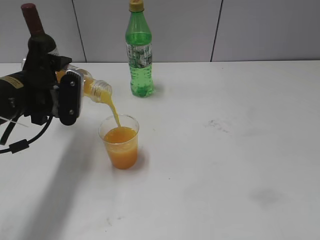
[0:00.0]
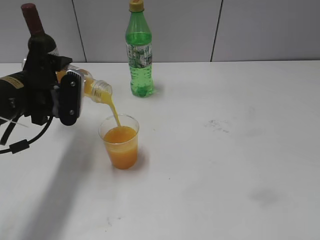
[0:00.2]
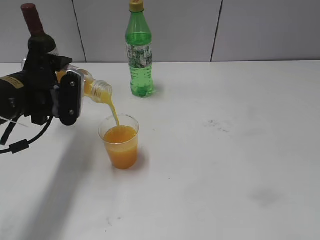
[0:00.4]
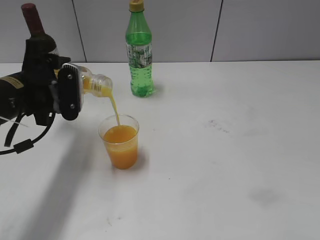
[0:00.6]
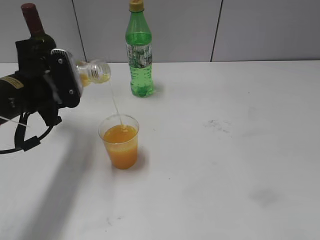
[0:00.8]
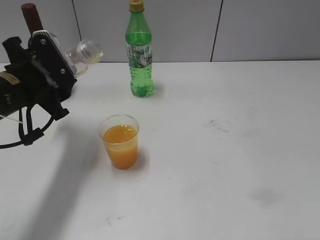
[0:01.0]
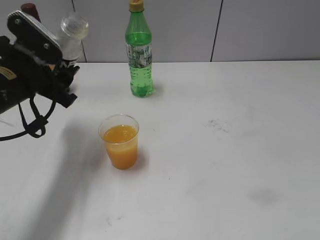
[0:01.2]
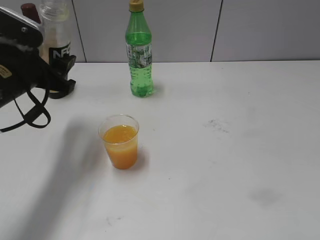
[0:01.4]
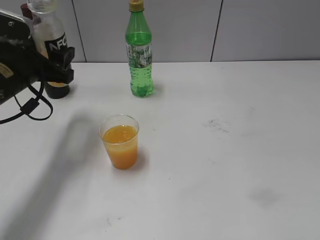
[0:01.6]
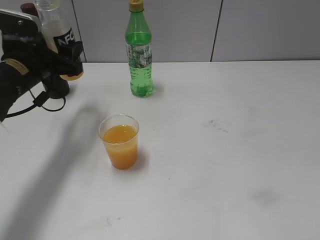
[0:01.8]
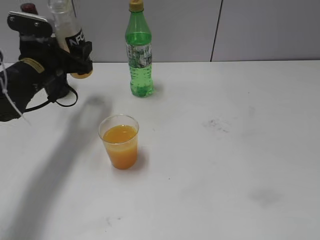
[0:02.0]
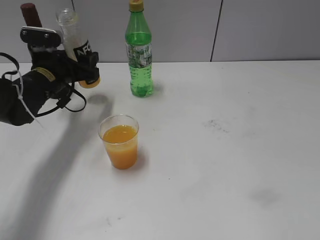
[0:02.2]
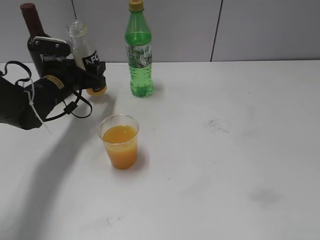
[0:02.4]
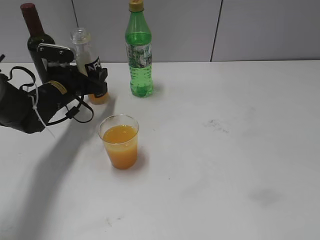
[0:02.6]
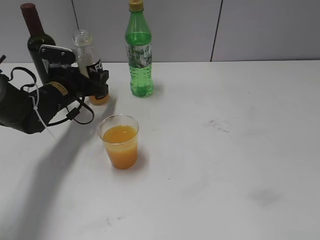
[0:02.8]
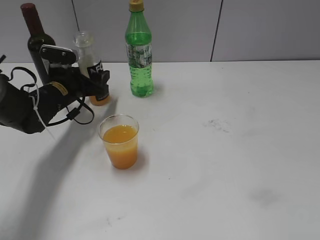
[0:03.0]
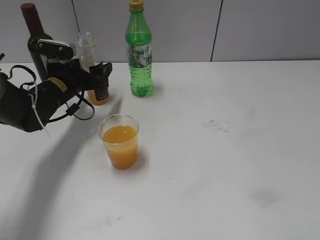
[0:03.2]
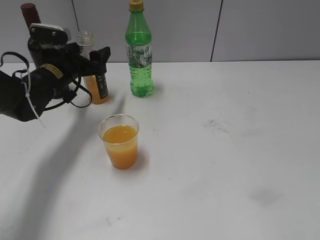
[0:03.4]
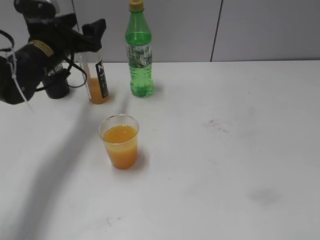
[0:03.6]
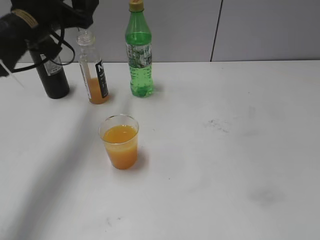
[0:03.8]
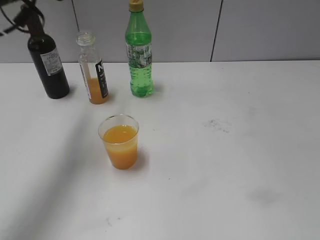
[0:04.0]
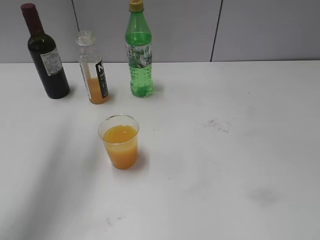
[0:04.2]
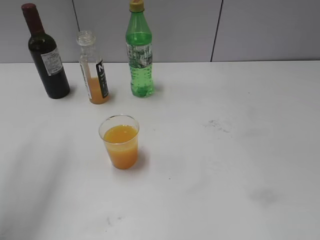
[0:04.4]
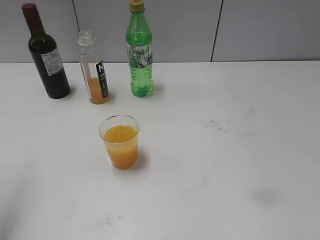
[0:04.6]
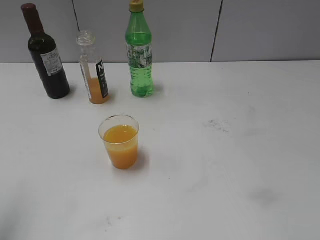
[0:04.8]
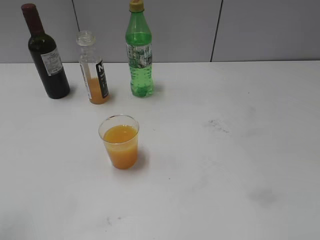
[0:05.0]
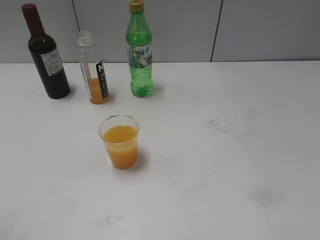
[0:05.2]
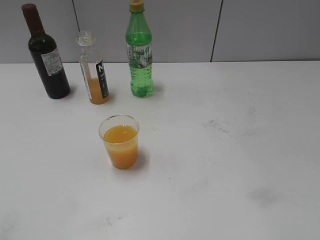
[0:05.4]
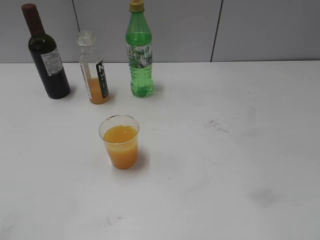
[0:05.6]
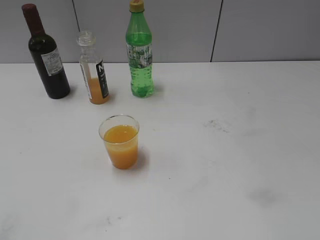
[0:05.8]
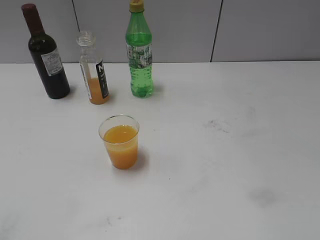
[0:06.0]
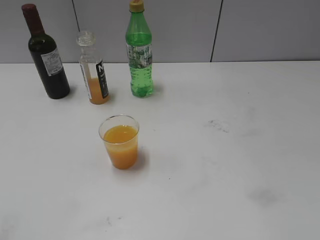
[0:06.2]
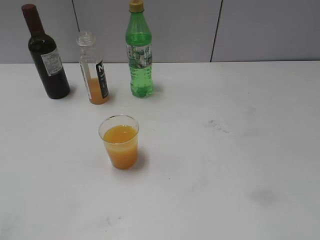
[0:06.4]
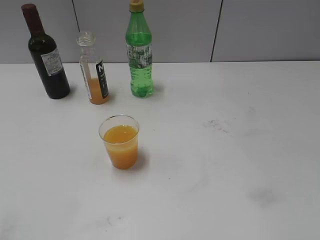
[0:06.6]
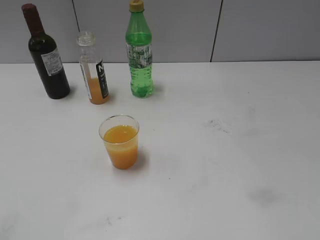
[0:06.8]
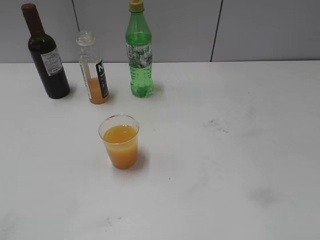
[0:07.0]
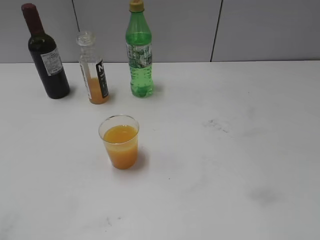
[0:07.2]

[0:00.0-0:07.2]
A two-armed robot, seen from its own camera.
Step, 1.2 to 3.0 s: Place the orange juice bottle on the table with left gripper.
1.4 to 2.8 s: The left gripper is displaced forward and downward by roughly 15 cm.
2.8 to 4.4 s: The left gripper shifts some 35 cm upward and backward.
4.4 to 5.8 s: The left gripper travels backward by roughly 25 cm.

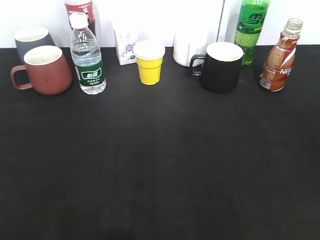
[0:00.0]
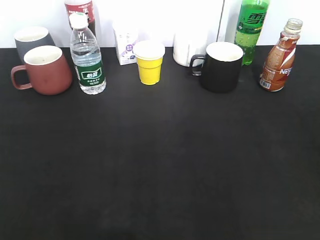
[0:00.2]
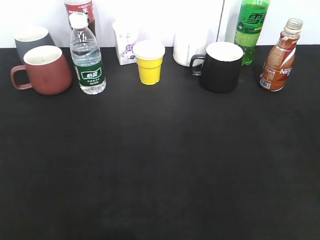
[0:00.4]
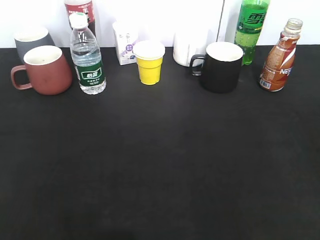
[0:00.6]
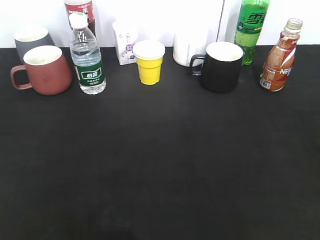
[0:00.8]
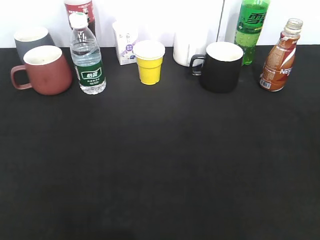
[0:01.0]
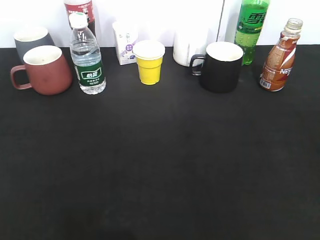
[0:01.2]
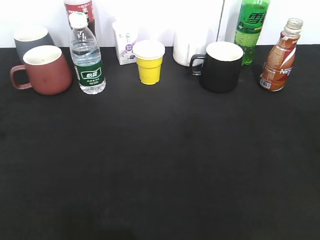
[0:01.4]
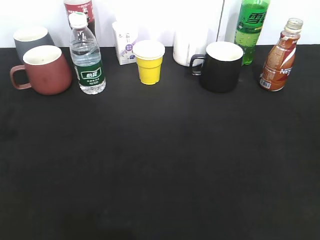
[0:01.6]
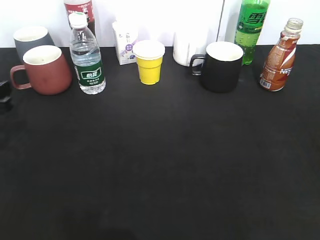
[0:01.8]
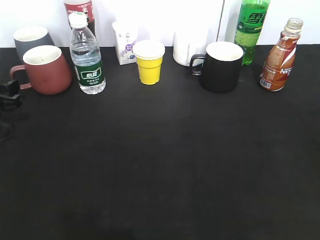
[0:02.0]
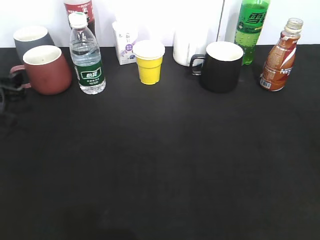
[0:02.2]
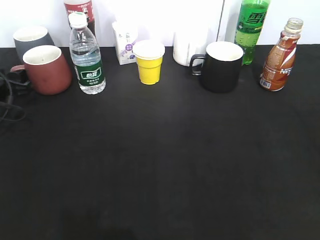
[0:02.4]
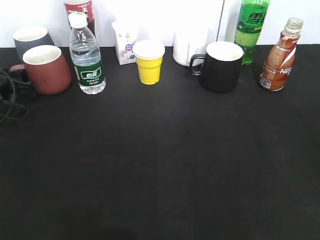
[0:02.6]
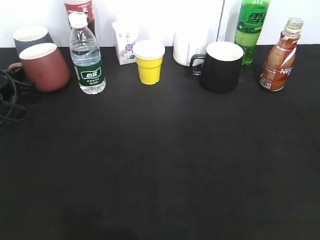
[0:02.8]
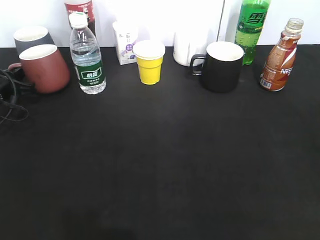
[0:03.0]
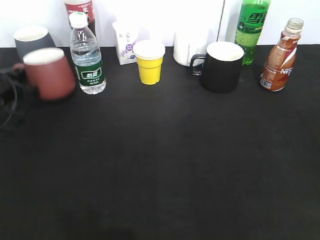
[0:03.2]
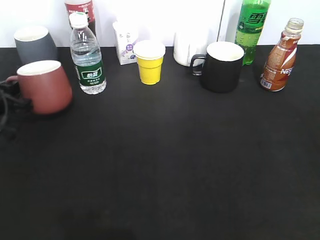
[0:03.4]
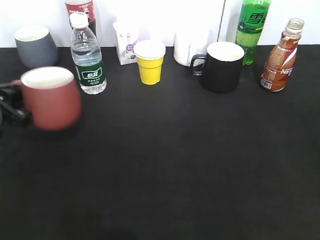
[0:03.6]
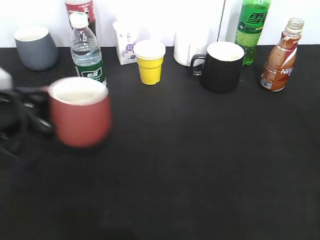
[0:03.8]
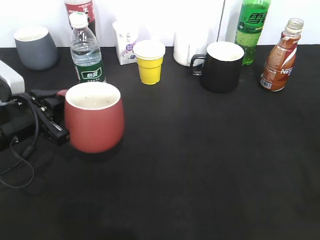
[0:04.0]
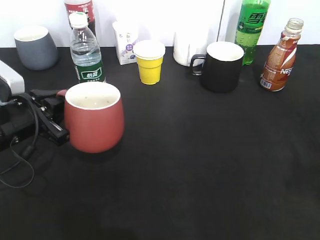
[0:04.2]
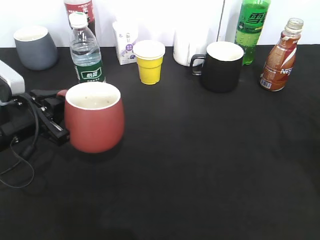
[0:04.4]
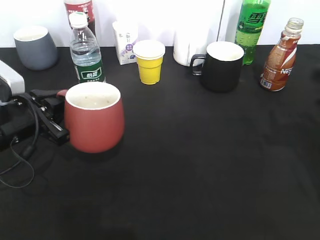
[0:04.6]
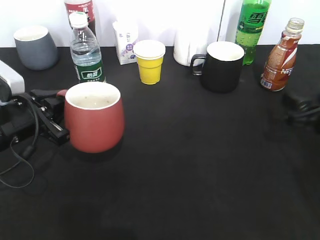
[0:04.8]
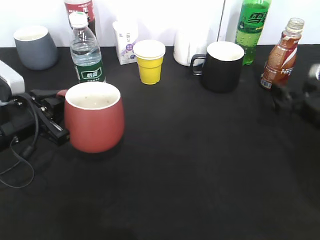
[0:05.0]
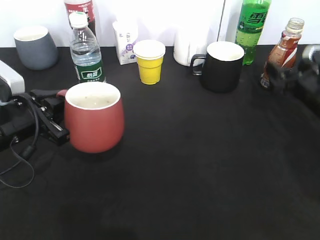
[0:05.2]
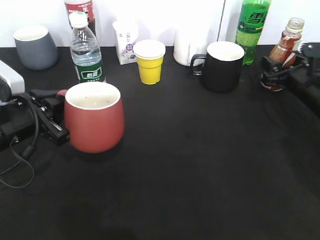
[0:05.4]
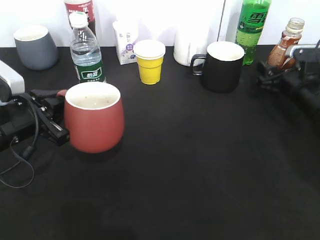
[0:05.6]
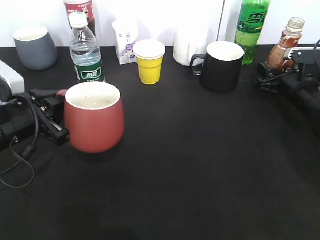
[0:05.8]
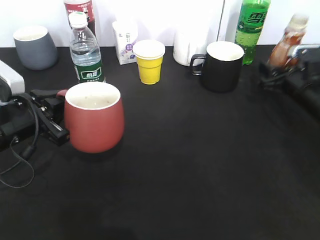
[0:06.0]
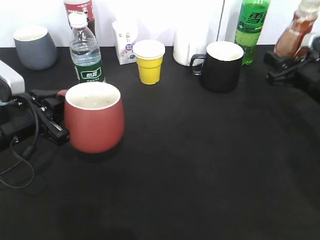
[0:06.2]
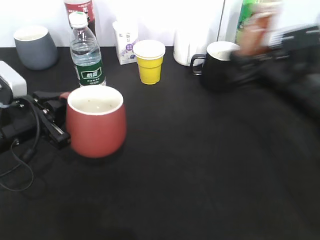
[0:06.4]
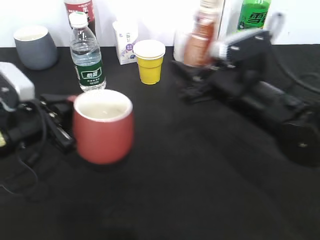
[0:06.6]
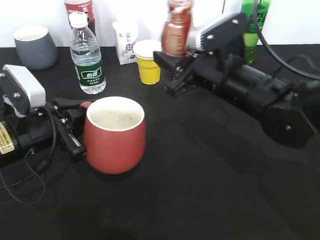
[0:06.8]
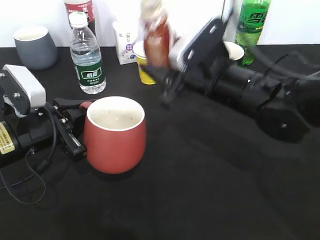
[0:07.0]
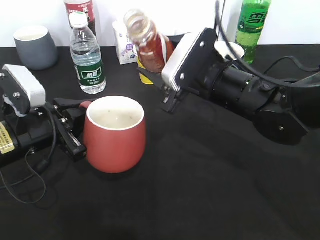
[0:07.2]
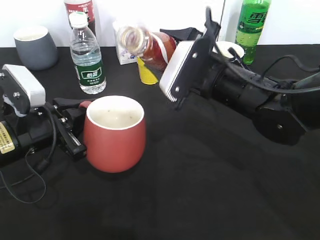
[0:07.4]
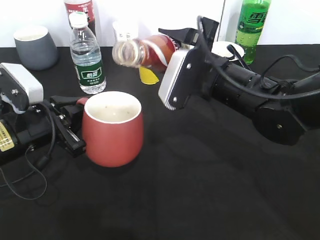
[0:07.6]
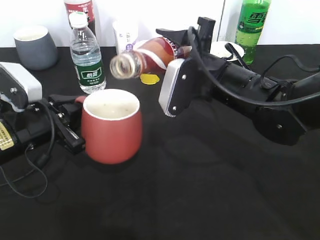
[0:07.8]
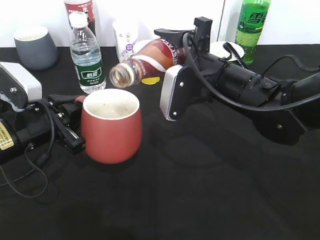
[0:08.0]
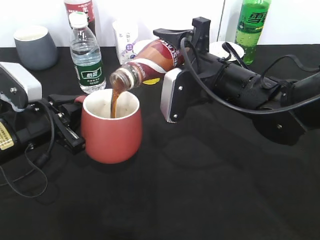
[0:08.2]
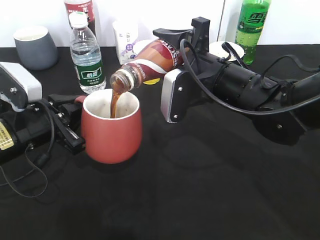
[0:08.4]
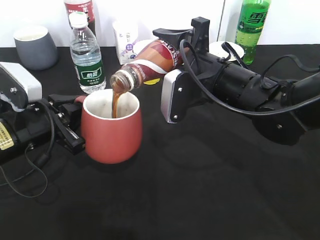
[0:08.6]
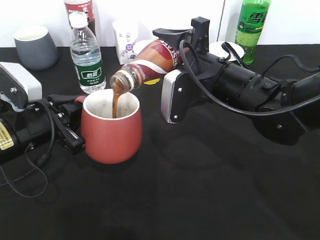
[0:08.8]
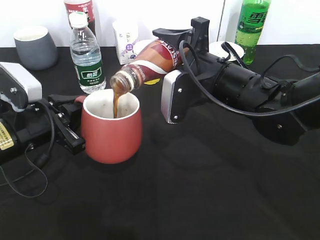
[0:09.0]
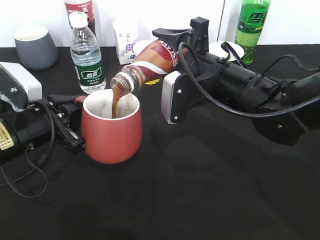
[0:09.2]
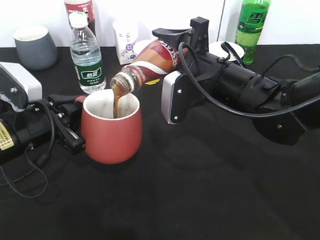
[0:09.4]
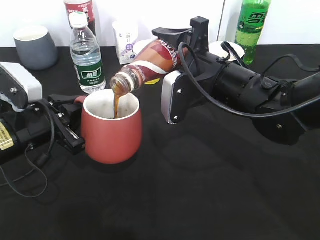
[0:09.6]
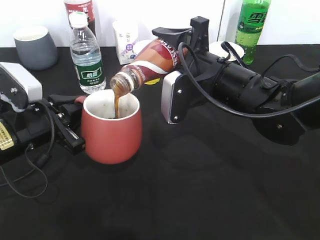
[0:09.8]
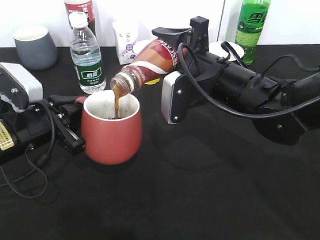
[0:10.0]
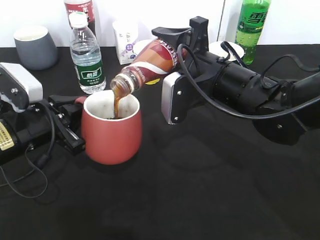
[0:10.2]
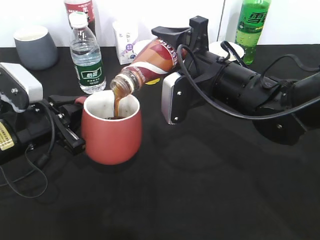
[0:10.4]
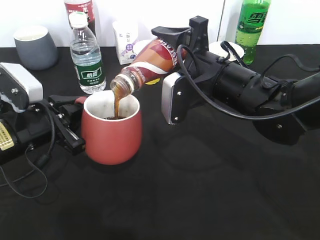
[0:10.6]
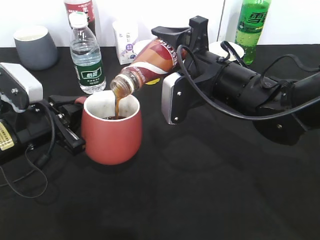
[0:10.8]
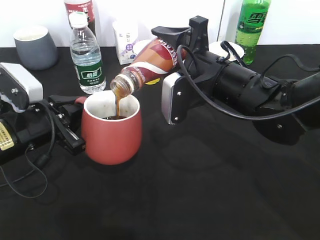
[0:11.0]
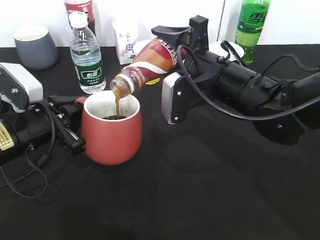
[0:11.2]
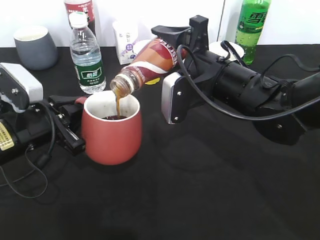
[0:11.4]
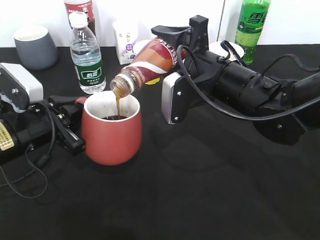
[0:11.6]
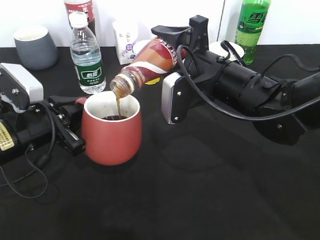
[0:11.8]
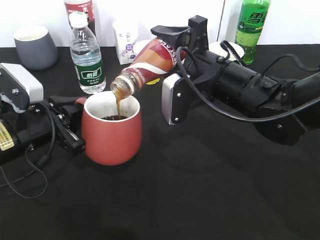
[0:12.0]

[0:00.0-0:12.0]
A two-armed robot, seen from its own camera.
Step, 0.0 to 2.8 s: Grasp the red cup with left gripper.
Step, 3.0 to 3.8 s: Lift the red cup with left gripper.
Step, 4.0 to 5.6 s: Grasp the bottle with coffee with right gripper.
0.0 to 1.6 s: The left gripper is displaced forward and downward by roughly 30 cm.
1.6 to 3.0 s: The left gripper travels forward by approximately 15 cm, and closes.
3.0 to 4.4 s: The left gripper goes some 15 cm backward and to the right. The right gripper moves forward, about 15 cm.
4.4 to 6.0 s: The right gripper moves forward and downward, some 25 cm, and closes its fingers.
6.0 to 7.6 s: The right gripper is displaced to the left by roughly 20 cm.
9.0 to 10.4 s: Neither gripper changes place.
10.4 to 12.0 s: Neither gripper changes place.

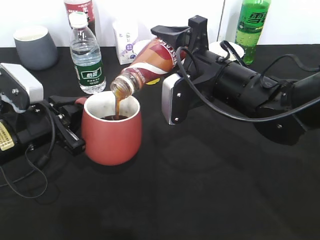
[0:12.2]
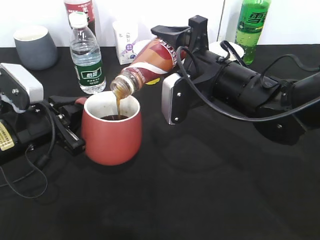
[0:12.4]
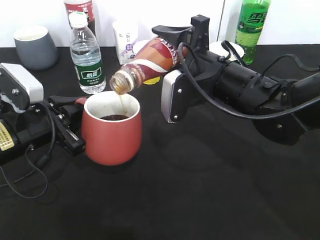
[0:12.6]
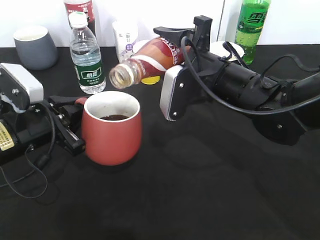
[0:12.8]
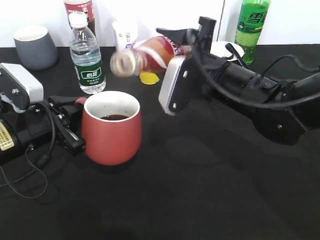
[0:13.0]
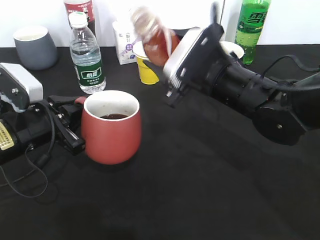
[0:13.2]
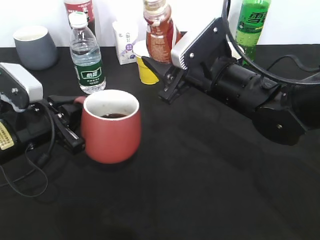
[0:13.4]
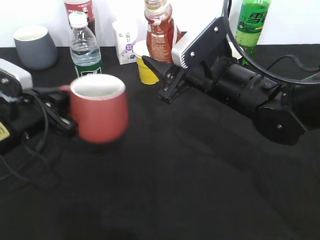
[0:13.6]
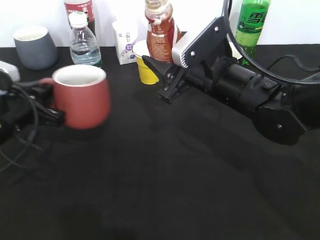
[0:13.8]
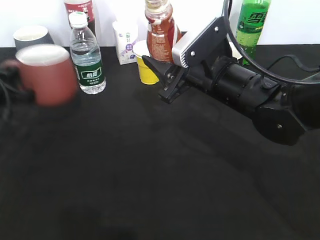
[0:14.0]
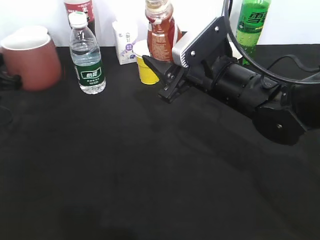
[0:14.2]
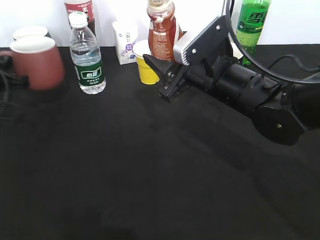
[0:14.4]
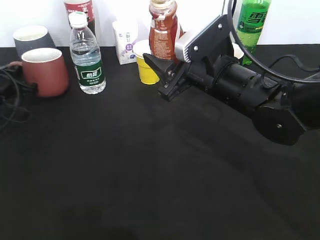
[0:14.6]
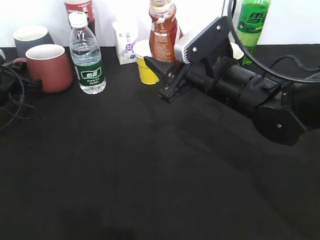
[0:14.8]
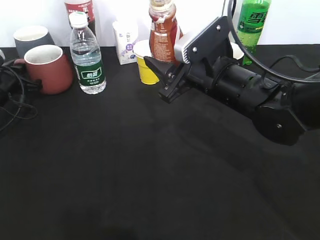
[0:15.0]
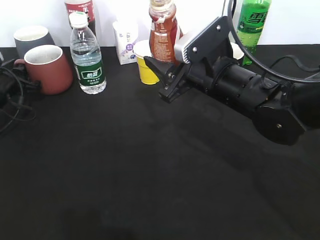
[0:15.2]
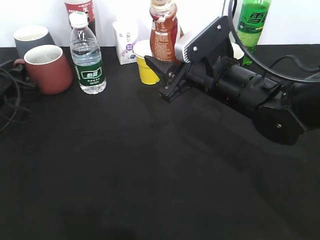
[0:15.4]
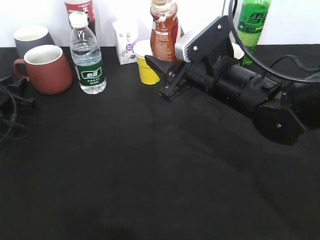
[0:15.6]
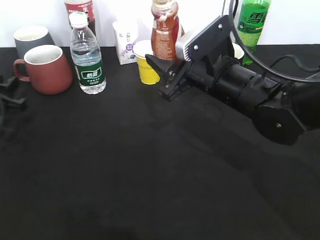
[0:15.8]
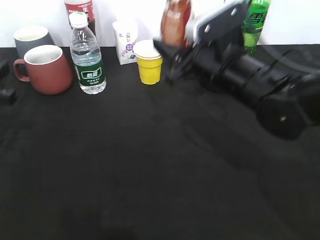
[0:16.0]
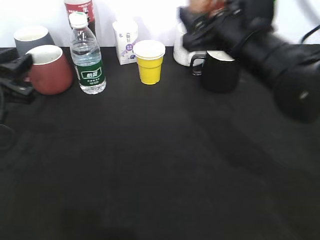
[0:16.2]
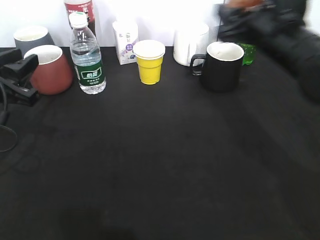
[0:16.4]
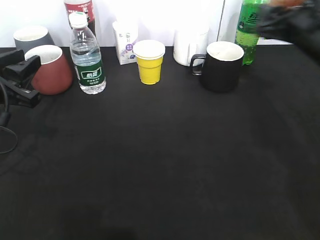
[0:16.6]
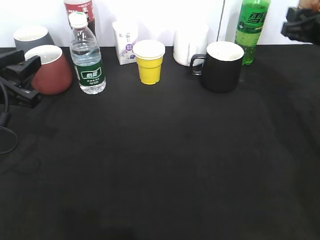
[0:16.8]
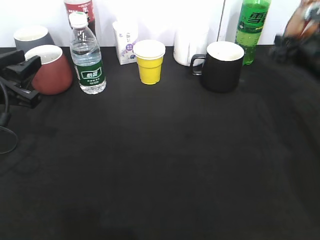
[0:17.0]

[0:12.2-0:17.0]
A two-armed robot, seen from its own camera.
Step, 13.4 to 15.4 s: Place the red cup on the table with left gripper.
13.8 to 15.4 s: The left gripper moves forward and to the left, about 15 cm, and opens.
15.4 to 17.0 s: The right gripper heads to the right, covering some 20 cm; the left gripper travels backward, upward and to the right by approximately 15 cm.
